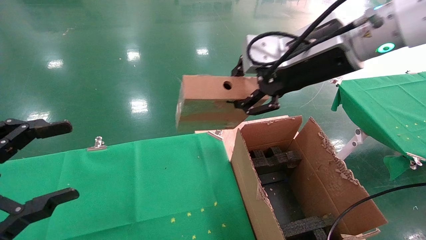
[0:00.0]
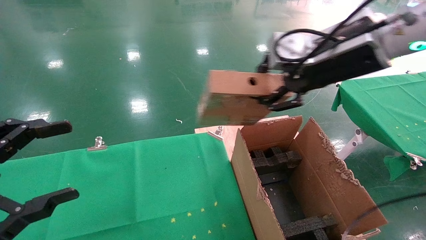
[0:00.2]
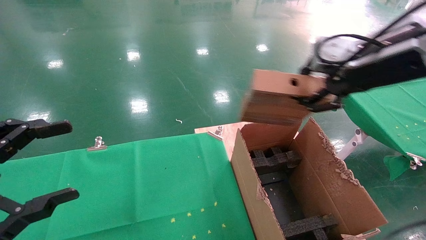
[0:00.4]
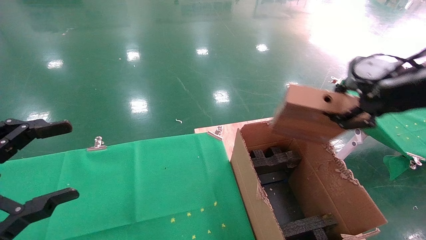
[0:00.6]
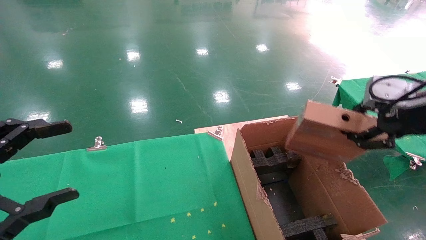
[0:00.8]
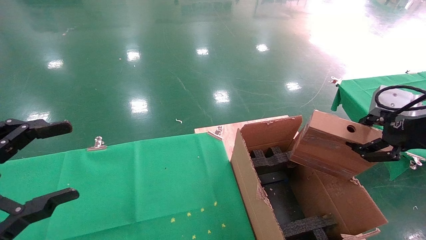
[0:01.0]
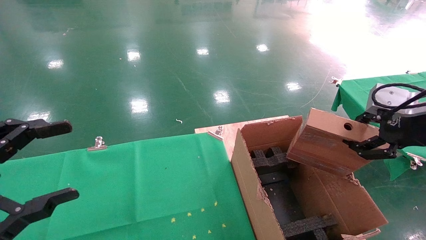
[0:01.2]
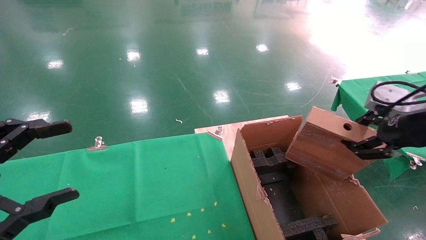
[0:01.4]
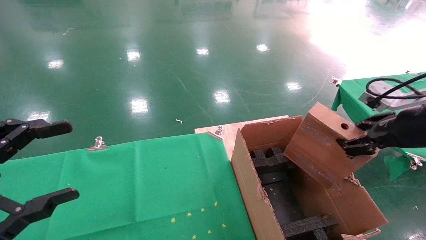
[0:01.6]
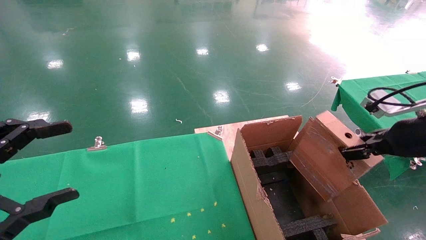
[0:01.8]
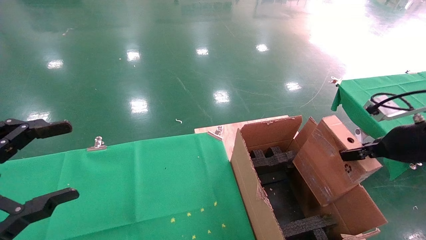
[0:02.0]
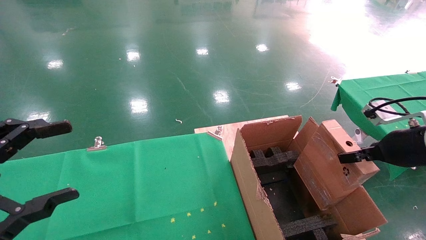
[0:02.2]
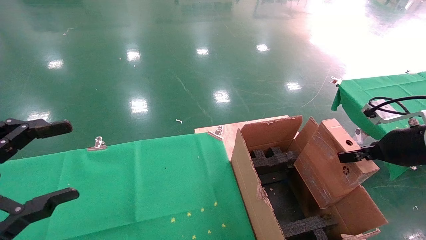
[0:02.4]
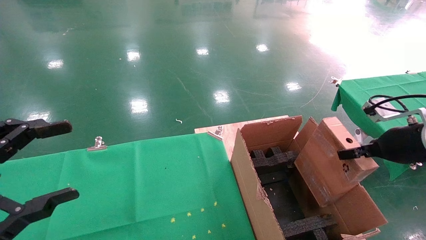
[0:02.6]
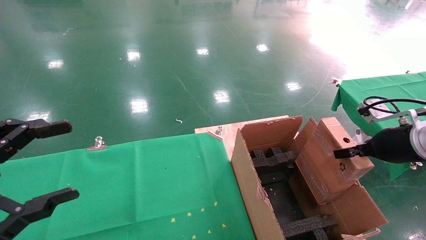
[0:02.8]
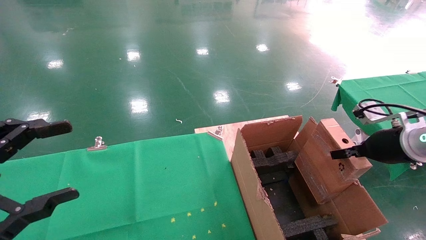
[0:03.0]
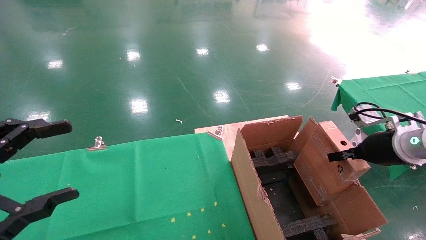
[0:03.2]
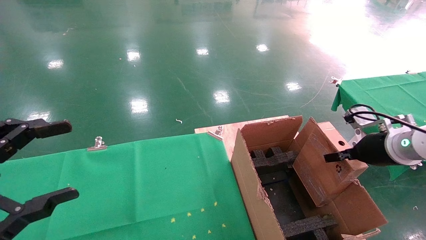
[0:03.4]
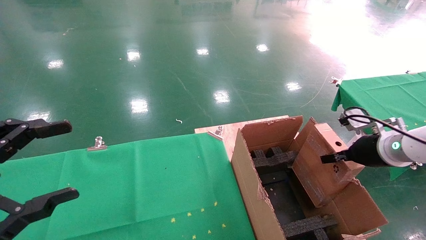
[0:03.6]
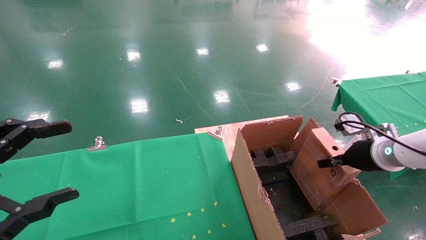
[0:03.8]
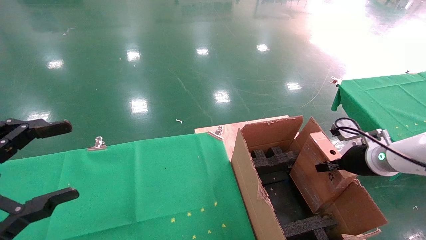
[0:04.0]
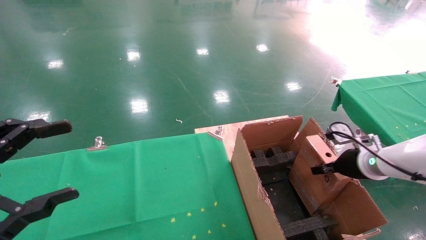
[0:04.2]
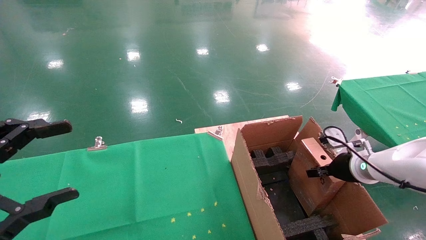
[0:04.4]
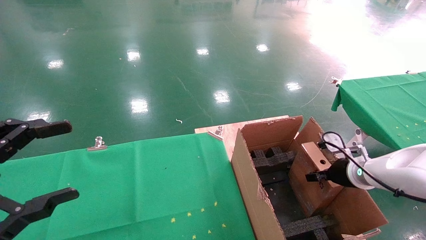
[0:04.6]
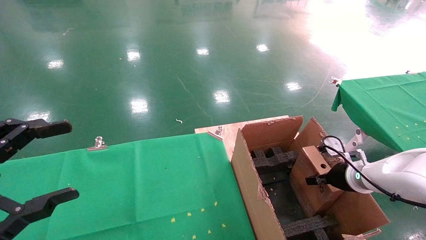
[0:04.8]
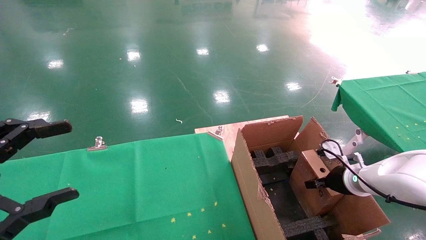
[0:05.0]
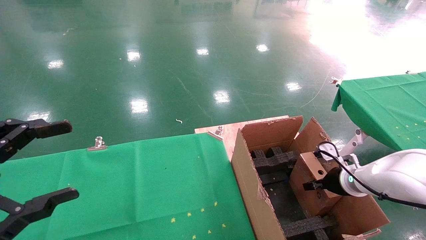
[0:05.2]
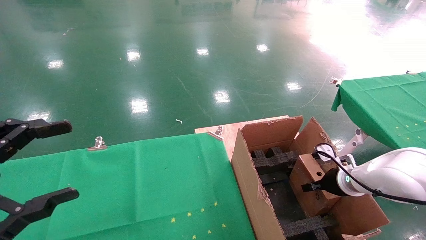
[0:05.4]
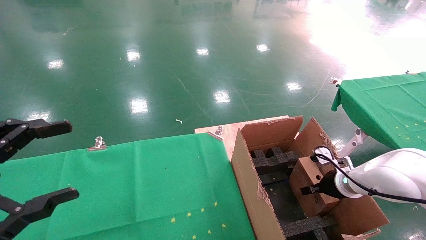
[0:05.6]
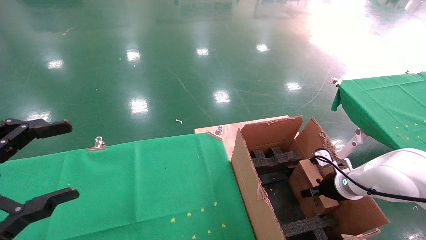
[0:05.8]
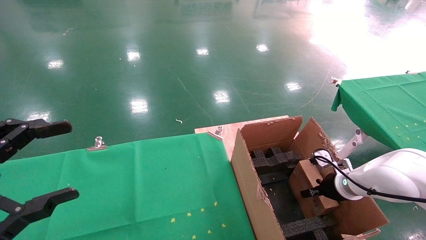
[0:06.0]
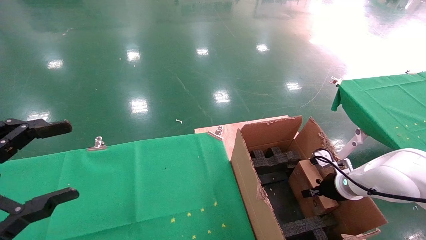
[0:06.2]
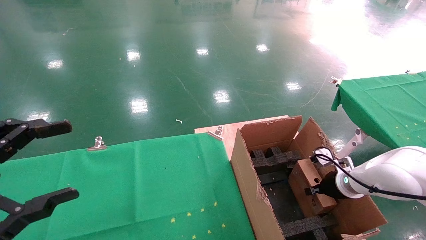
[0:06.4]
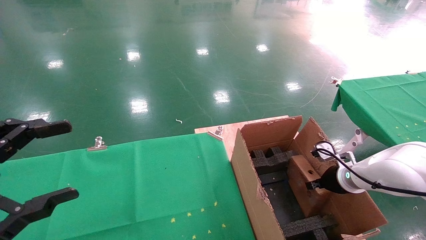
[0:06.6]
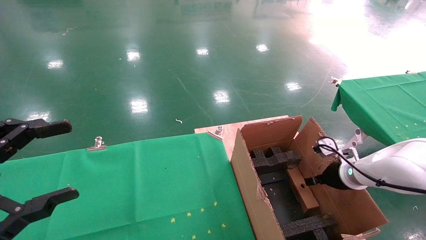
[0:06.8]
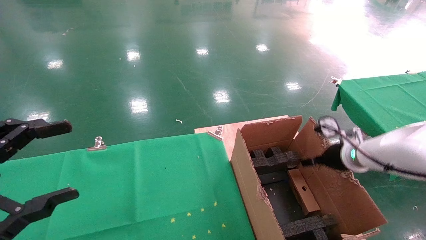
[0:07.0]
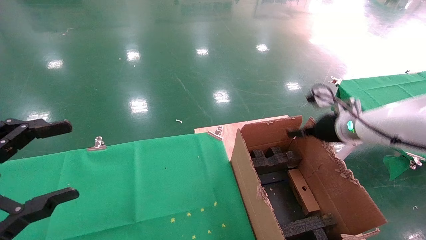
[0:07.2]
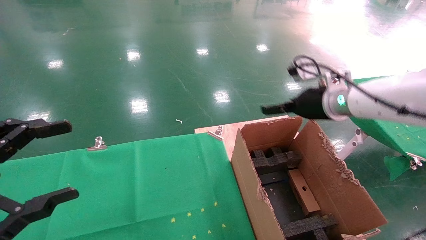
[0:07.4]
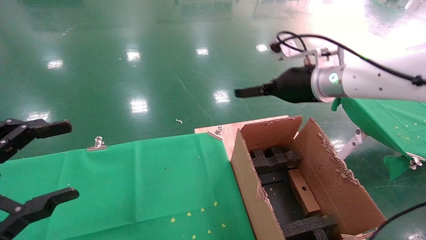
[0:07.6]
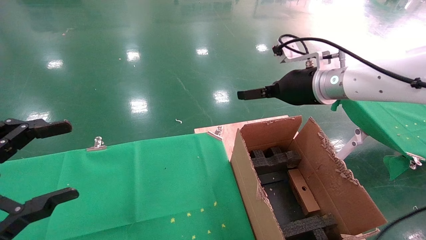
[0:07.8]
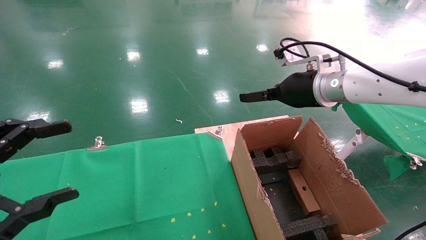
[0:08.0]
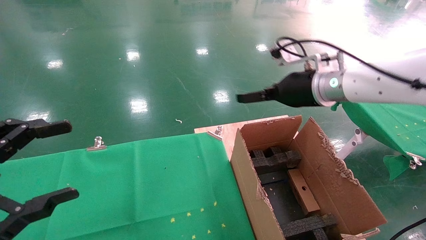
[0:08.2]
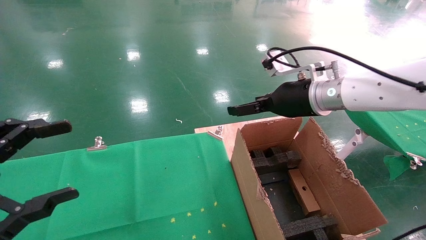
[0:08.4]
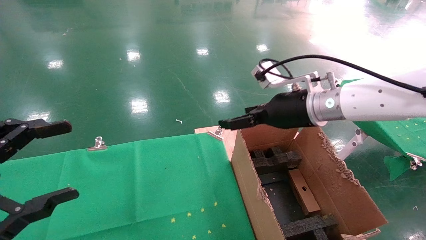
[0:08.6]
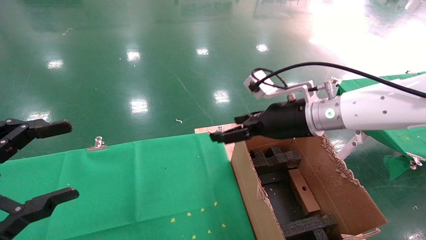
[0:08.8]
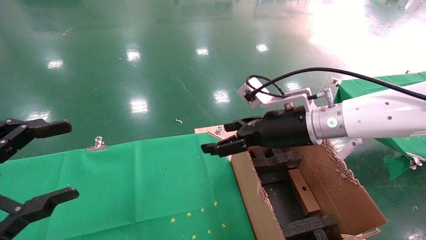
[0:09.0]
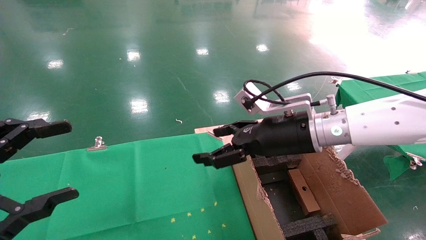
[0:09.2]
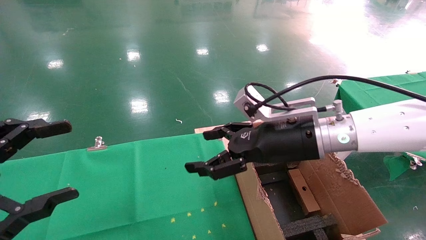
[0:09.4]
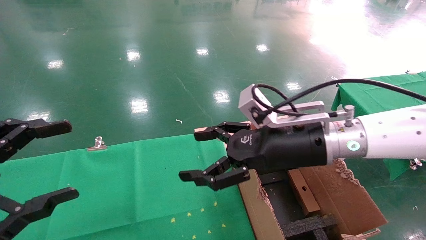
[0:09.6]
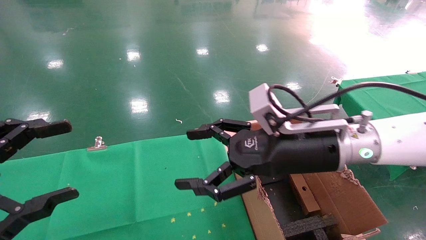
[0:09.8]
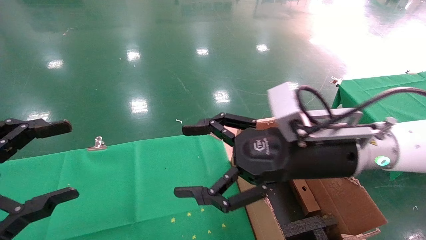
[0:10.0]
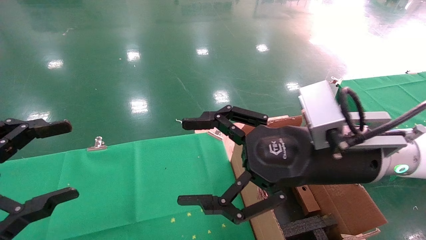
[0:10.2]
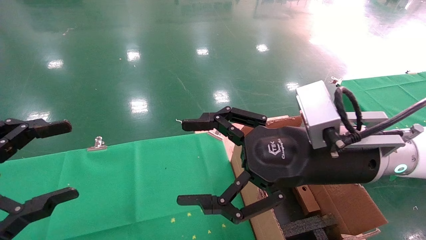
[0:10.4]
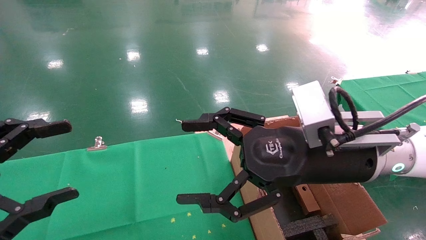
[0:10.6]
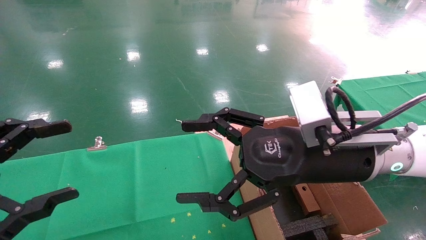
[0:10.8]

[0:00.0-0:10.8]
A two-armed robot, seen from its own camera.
Task of the whole recording: using a robotic arm to pick up a cardboard box and palace it the carton.
Step, 0:00.0 to 0:06.6: Place the mouse and the power cord paper box into the container.
0:00.0 to 0:01.6: The right gripper heads to the right and downward, covering some 20 cm.
0:01.6 to 0:03.0: The right gripper travels downward and forward by about 10 cm.
0:03.0 to 0:04.6: The right gripper shifts about 10 cm downward and forward.
0:04.6 to 0:06.2: The right gripper changes place by about 5 cm.
0:06.2 to 0:07.8: The right gripper heads upward and to the left, covering roughly 30 cm, and opens its fingers.
0:07.8 to 0:09.2: The right gripper is displaced downward, backward and to the left by some 10 cm.
0:09.2 to 0:10.8: The right gripper travels backward by approximately 10 cm.
